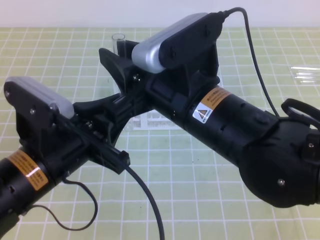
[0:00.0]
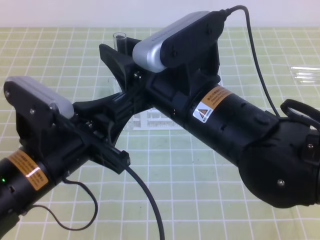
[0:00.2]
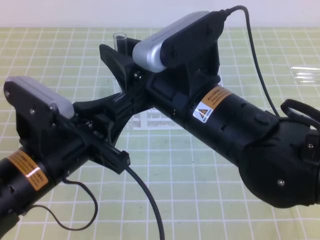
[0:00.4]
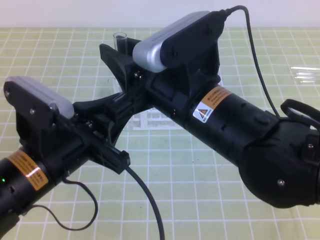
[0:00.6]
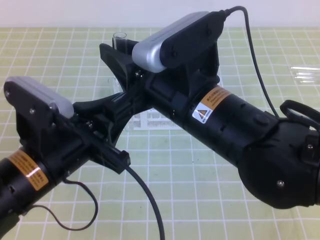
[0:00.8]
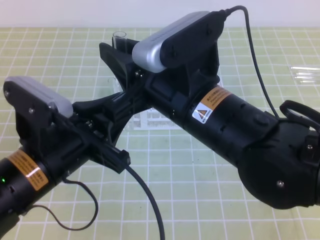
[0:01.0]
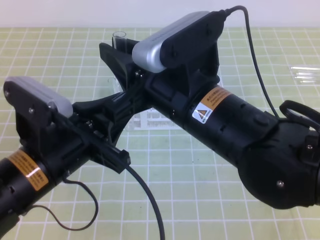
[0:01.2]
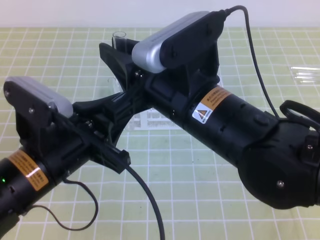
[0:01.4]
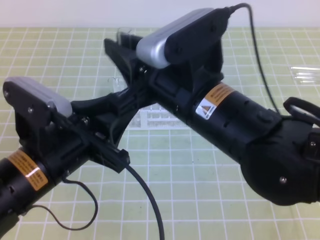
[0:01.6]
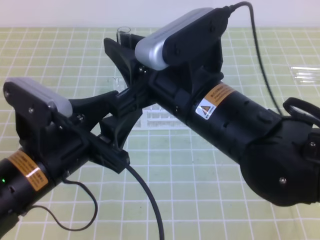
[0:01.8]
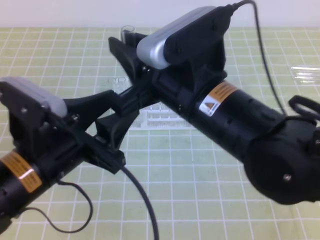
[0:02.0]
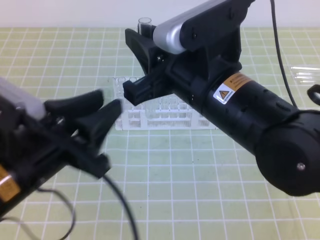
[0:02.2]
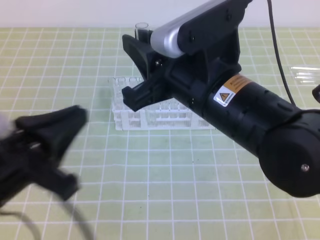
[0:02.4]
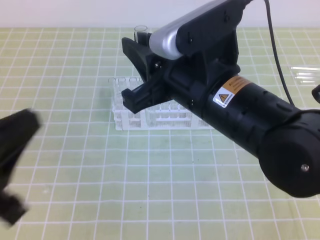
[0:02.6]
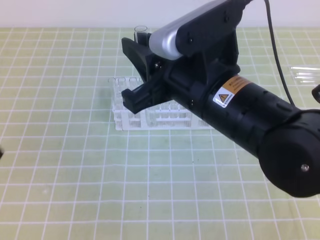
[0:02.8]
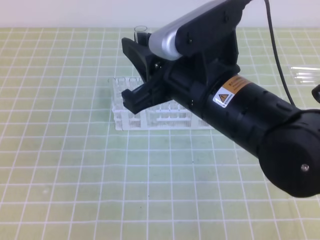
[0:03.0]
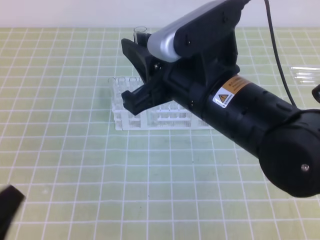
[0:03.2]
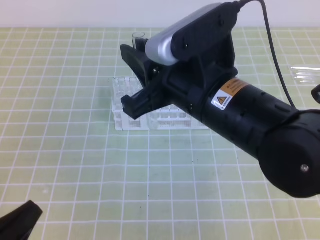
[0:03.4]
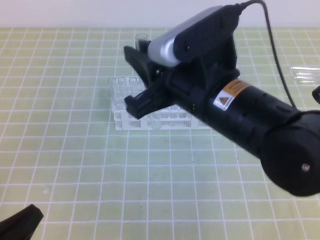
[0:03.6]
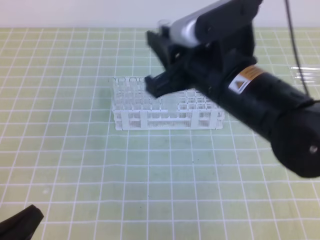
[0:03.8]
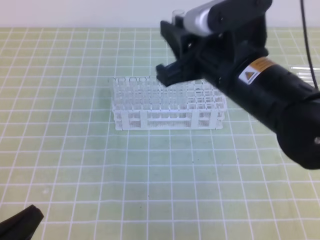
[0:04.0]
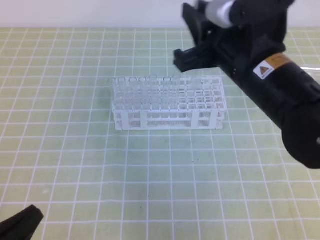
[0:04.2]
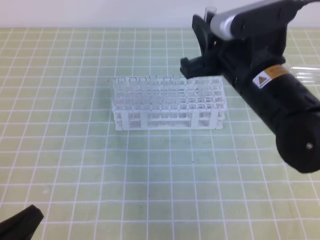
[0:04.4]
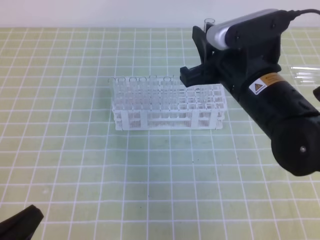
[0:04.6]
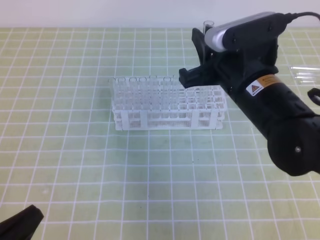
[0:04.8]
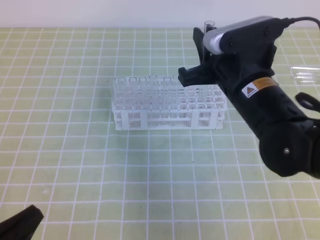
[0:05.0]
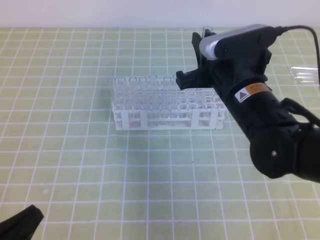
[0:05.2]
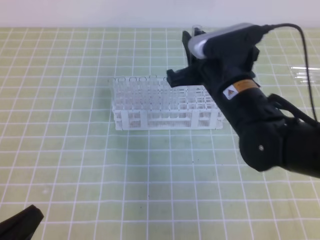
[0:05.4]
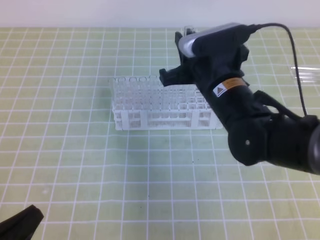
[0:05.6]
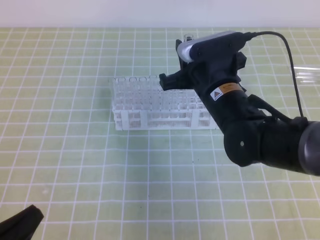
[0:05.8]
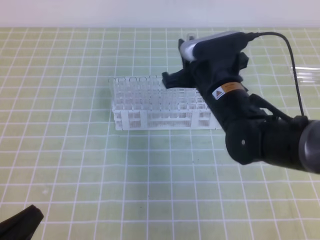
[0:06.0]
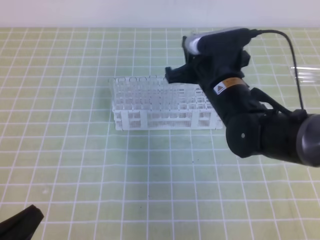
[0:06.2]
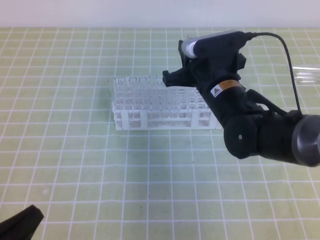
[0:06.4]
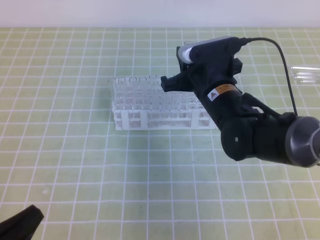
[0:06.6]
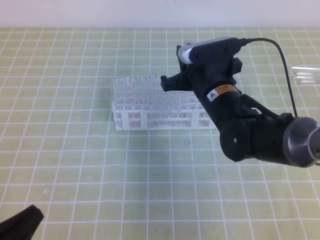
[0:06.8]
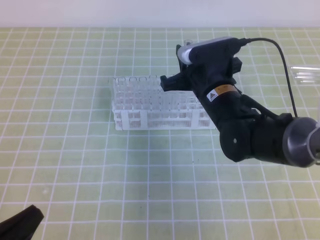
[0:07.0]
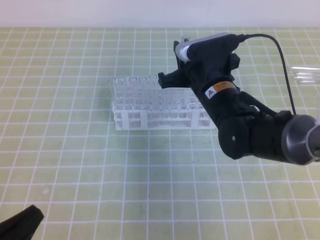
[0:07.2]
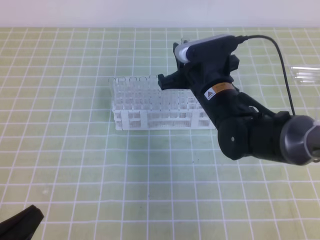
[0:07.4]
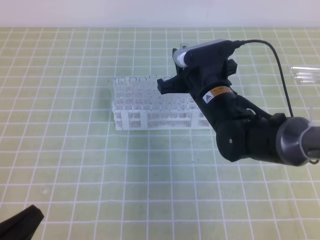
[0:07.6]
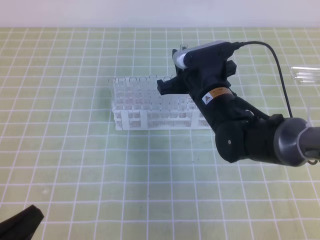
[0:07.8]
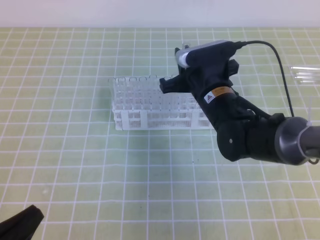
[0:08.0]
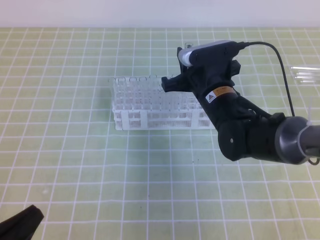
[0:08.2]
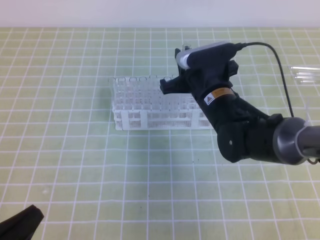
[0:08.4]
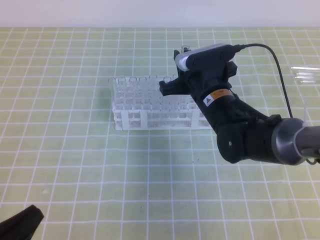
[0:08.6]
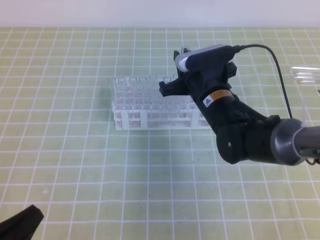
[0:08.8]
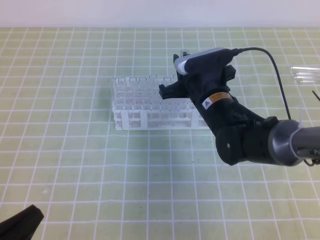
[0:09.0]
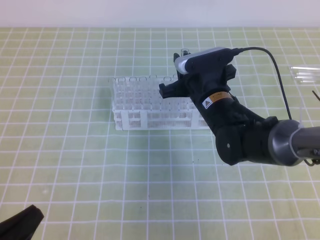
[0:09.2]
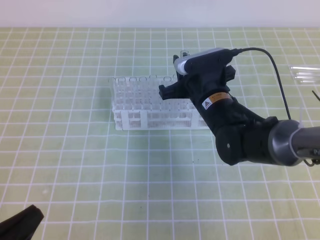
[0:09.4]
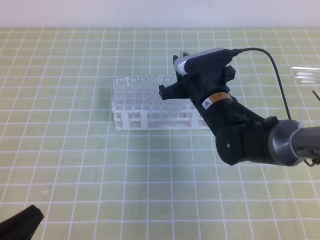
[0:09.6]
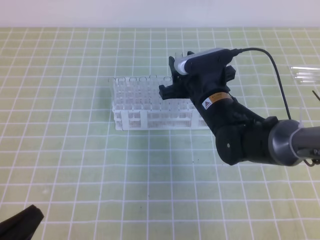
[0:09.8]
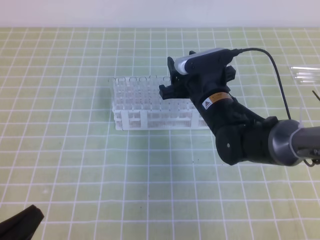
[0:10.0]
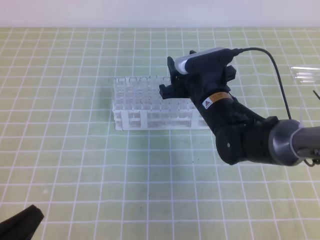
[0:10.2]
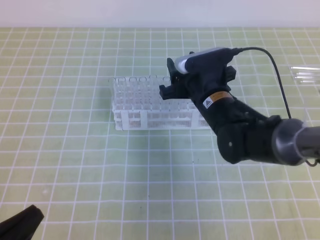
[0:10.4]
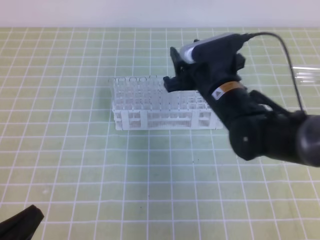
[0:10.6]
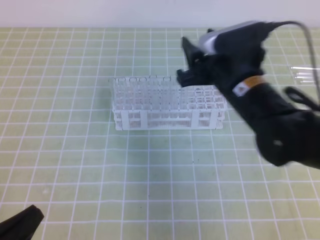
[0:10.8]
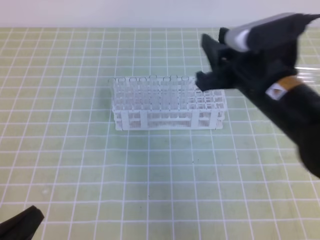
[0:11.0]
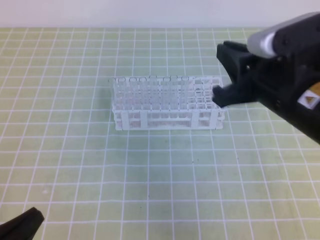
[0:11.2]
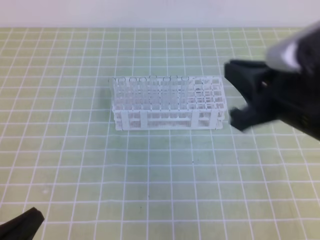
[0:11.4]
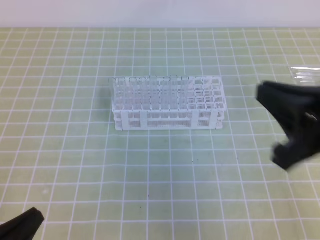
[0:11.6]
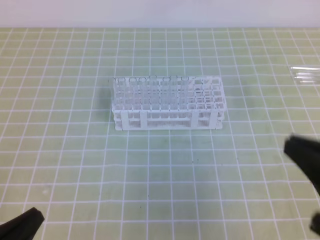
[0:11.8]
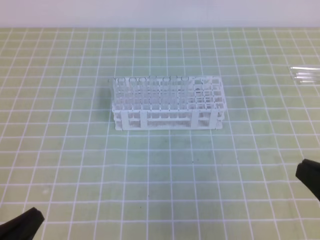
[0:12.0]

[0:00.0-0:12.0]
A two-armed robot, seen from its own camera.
0:00.0 to 0:01.6: The left gripper opens.
0:01.6 to 0:03.0: The left gripper shifts approximately 15 cm backward and to the left, and closes.
0:03.0 to 0:04.4: The right gripper goes some 5 cm forward and to the right, while the left gripper moves downward, some 10 cm.
0:04.4 to 0:06.0: The right gripper is displaced downward and forward by approximately 10 cm.
0:06.0 to 0:09.0: The grippers move only a little.
0:09.0 to 0:10.4: The right gripper opens its fingers.
0:10.4 to 0:12.0: The right gripper moves backward and to the right, approximately 30 cm, and closes its fingers.

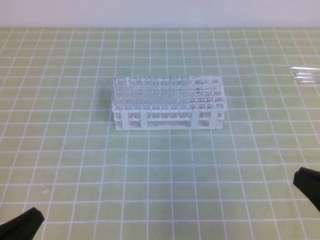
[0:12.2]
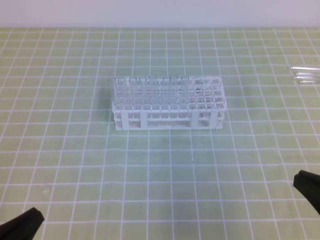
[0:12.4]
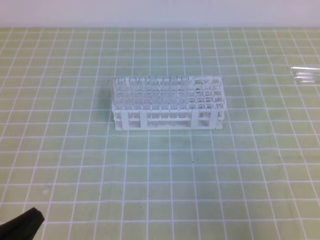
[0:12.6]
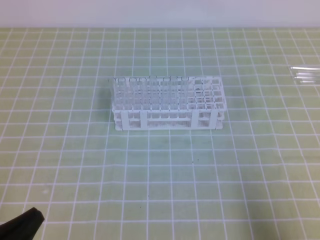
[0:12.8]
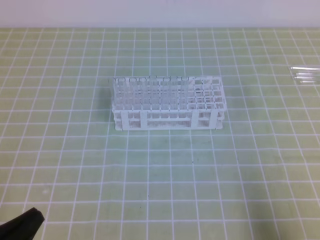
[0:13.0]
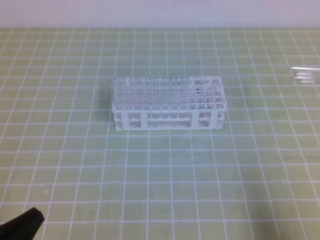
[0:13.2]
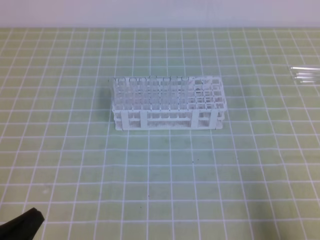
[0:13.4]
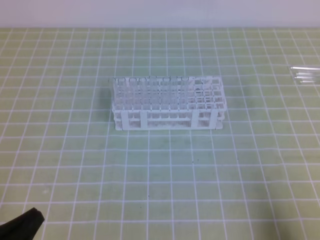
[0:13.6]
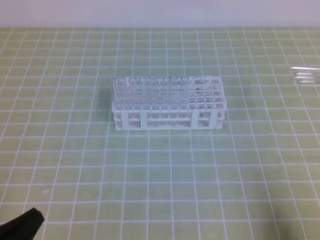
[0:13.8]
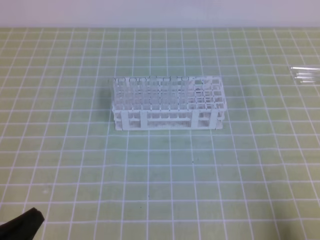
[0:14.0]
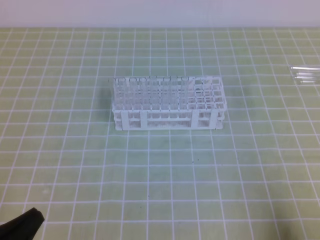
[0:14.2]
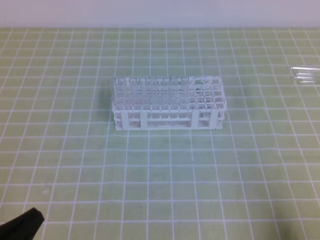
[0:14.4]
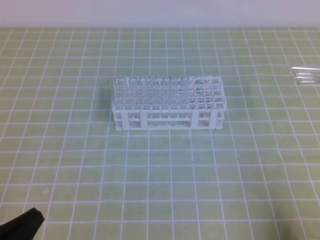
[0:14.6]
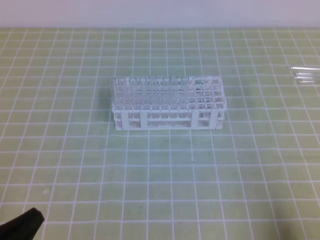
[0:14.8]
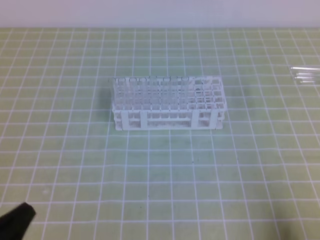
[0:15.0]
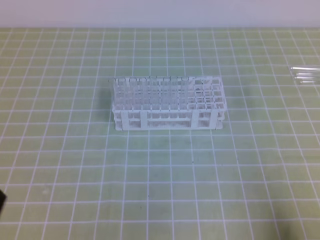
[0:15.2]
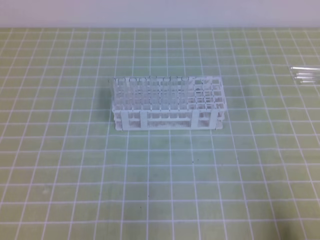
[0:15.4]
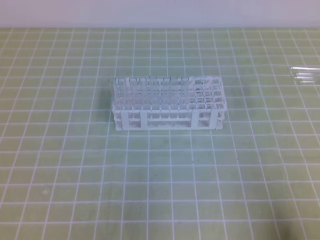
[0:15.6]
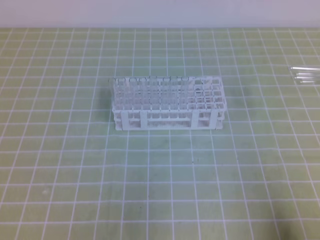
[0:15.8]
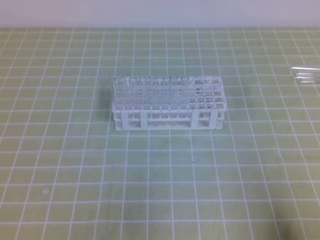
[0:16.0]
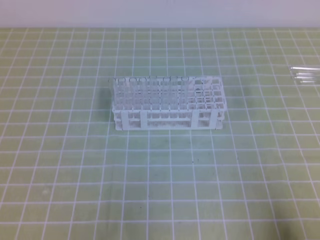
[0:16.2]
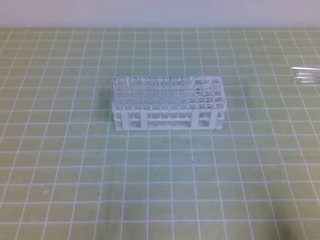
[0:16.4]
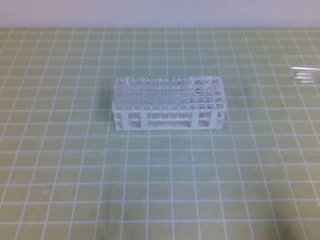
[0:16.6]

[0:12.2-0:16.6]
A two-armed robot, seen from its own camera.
0:12.2 to 0:13.6: The right gripper is displaced downward and to the right by about 10 cm.
0:13.6 to 0:15.2: The grippers stay close to where they were, moving slightly.

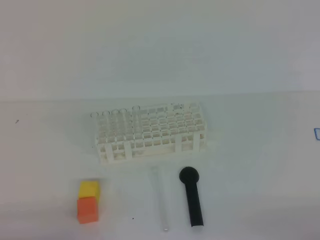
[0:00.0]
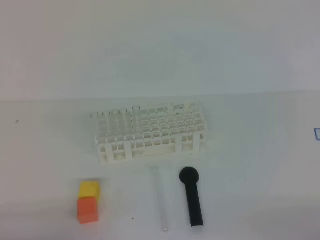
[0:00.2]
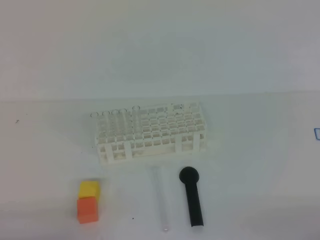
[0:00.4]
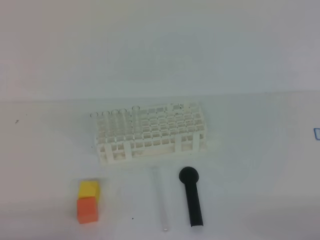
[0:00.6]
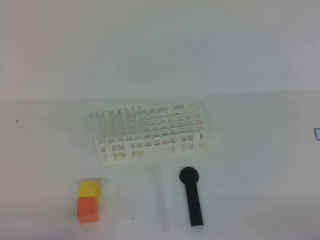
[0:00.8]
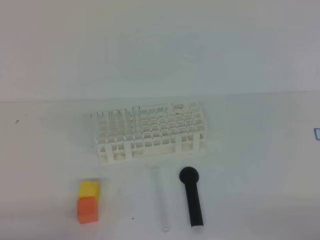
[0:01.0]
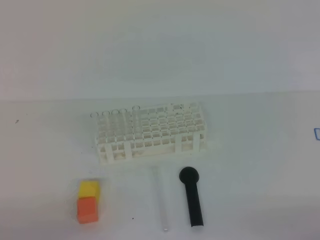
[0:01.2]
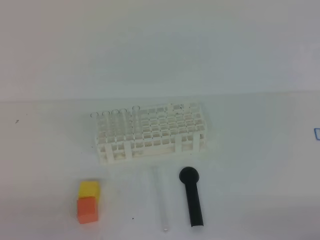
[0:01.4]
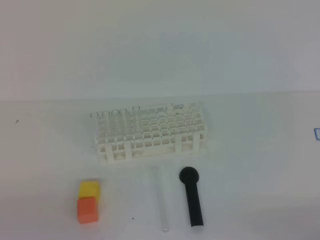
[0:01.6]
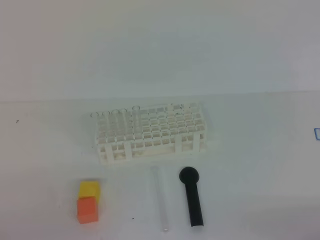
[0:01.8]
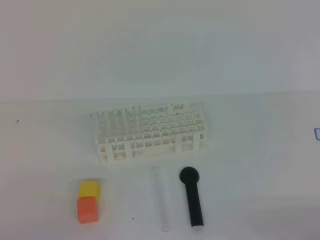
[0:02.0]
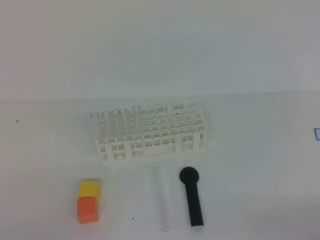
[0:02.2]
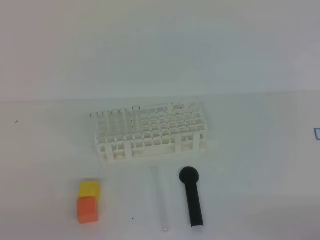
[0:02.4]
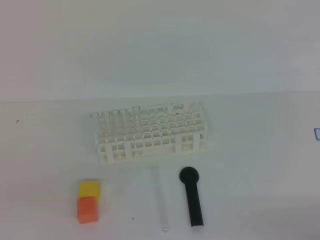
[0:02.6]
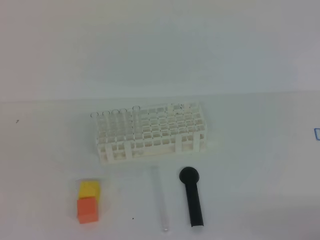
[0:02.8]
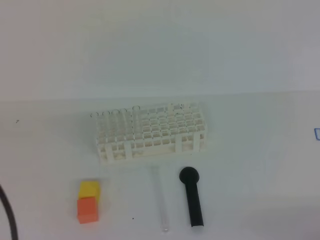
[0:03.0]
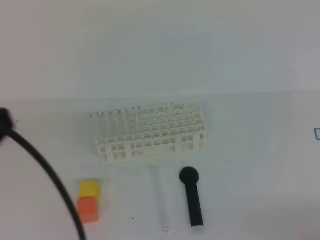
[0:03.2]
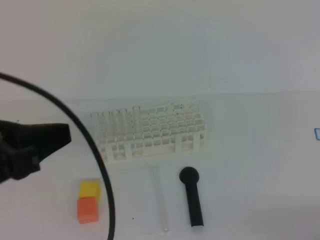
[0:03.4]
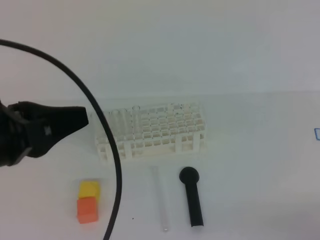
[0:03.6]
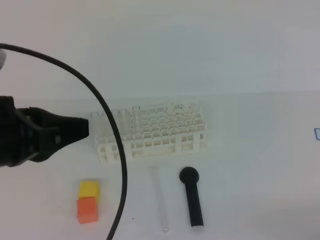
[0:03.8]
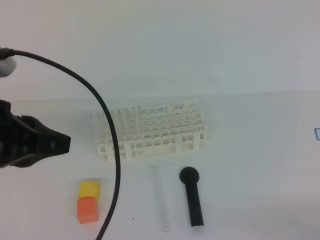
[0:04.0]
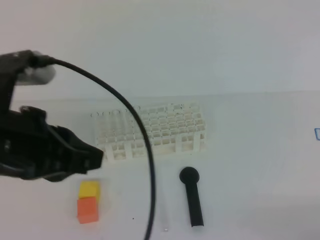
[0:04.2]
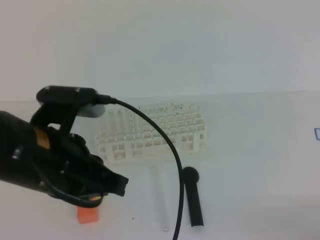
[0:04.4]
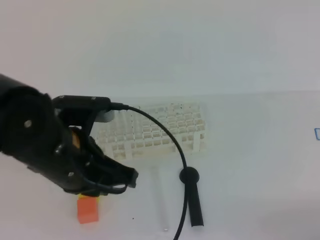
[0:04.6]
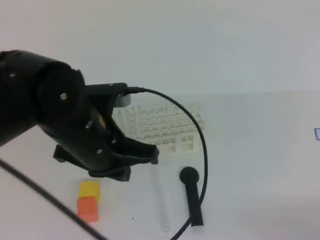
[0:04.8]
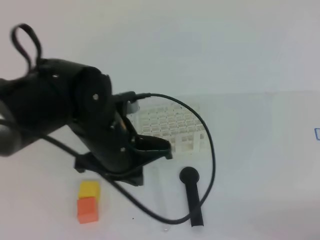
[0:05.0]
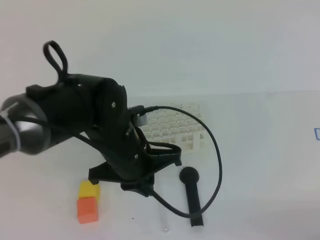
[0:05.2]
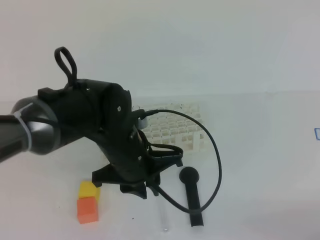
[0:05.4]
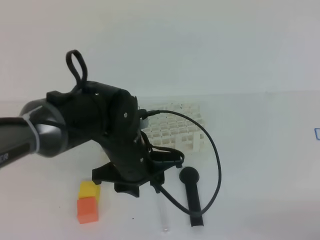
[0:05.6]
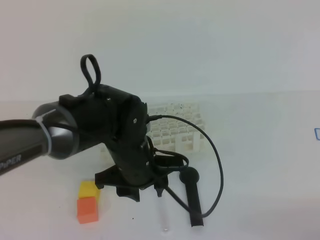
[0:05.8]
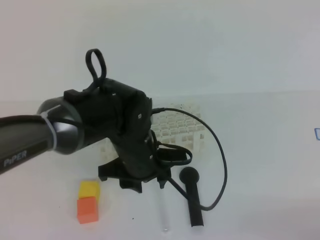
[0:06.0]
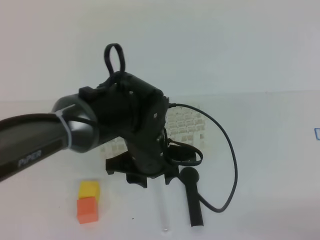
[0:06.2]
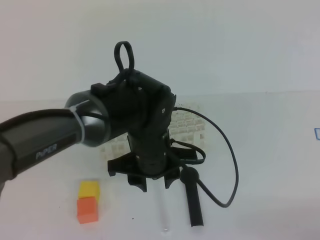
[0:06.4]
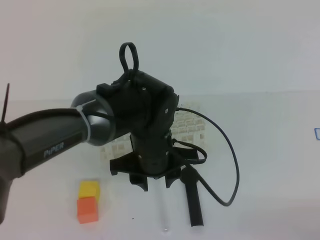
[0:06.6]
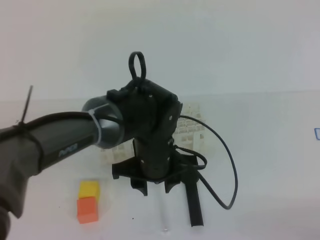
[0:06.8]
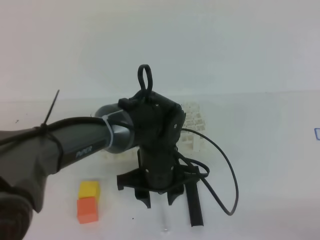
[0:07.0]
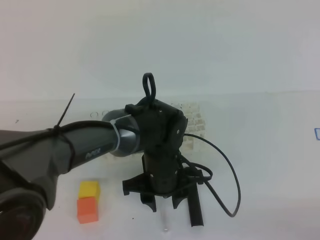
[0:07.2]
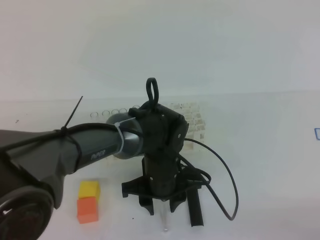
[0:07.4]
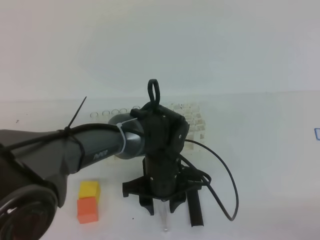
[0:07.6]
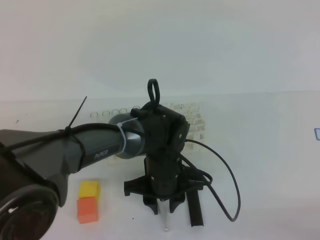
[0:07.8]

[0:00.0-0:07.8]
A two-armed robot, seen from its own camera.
0:01.6 to 0:03.2: The left gripper is displaced upward by roughly 15 cm.
0:03.2 to 0:04.6: The left gripper travels to the right, forward and downward by approximately 15 cm.
0:04.6 to 0:06.2: The left gripper travels to the right, downward and forward by approximately 15 cm, and opens up.
0:06.2 to 0:07.8: The left gripper moves downward, some 10 cm.
